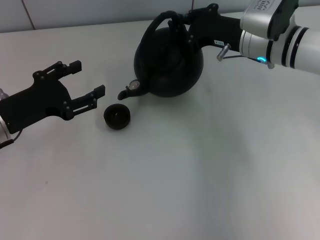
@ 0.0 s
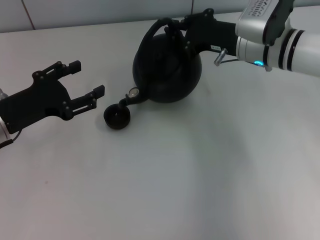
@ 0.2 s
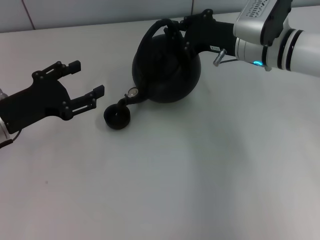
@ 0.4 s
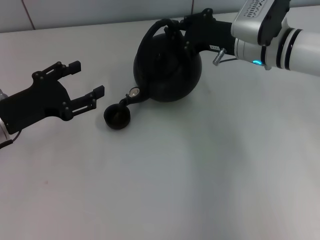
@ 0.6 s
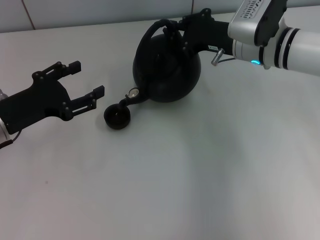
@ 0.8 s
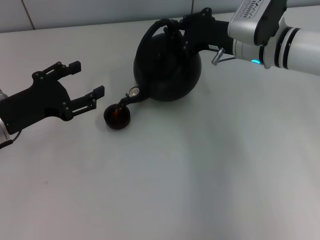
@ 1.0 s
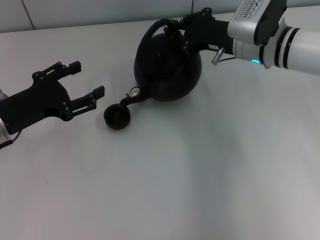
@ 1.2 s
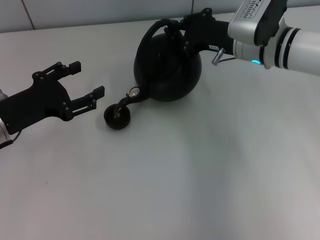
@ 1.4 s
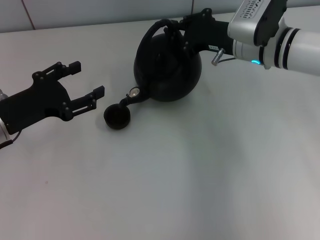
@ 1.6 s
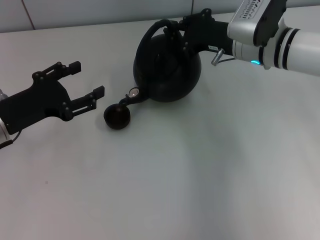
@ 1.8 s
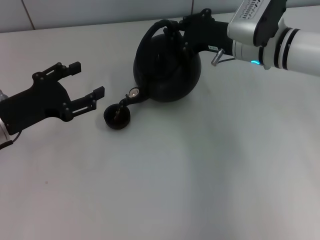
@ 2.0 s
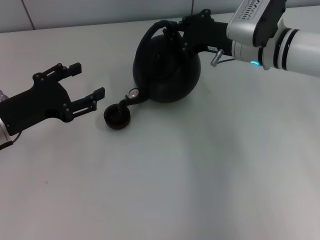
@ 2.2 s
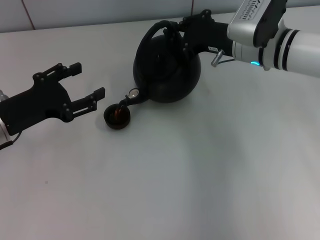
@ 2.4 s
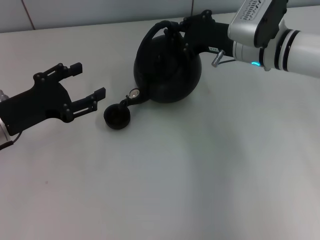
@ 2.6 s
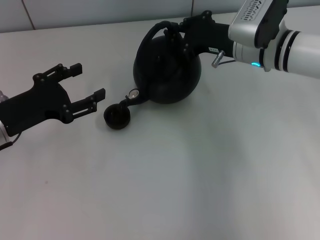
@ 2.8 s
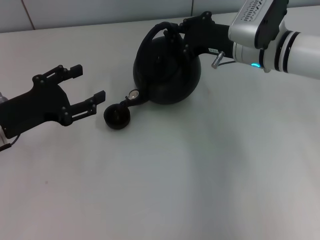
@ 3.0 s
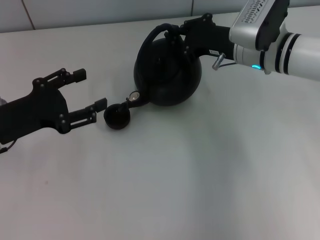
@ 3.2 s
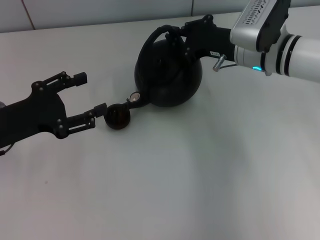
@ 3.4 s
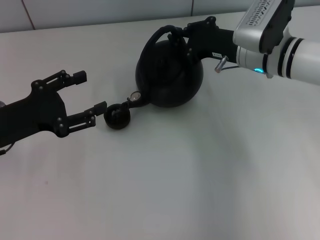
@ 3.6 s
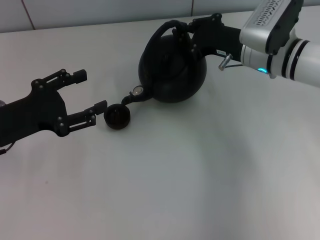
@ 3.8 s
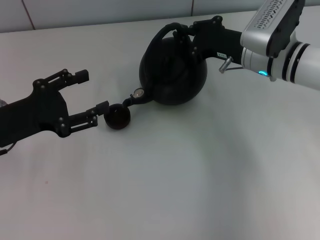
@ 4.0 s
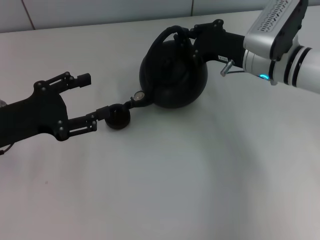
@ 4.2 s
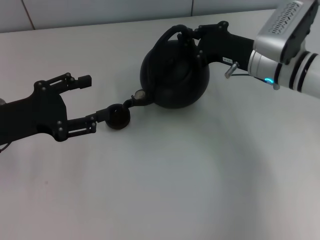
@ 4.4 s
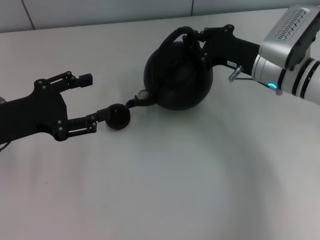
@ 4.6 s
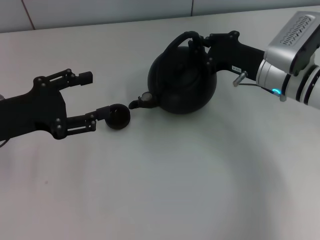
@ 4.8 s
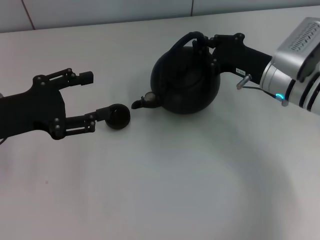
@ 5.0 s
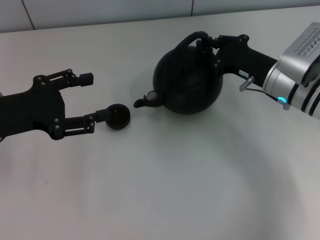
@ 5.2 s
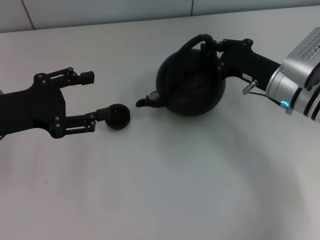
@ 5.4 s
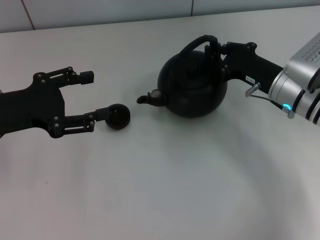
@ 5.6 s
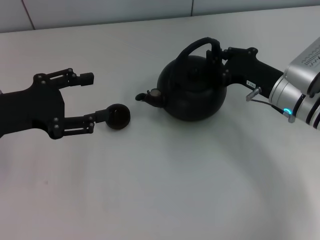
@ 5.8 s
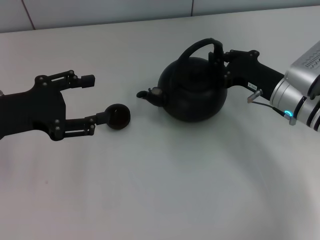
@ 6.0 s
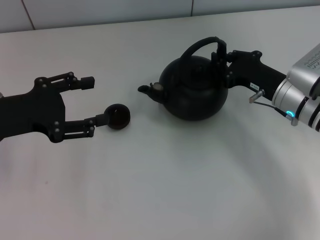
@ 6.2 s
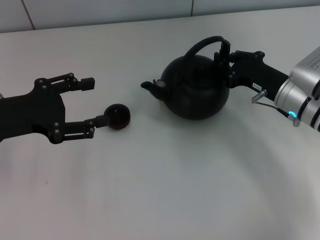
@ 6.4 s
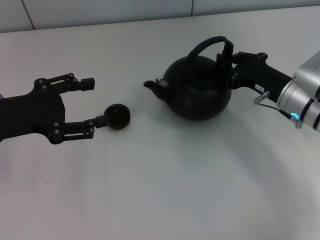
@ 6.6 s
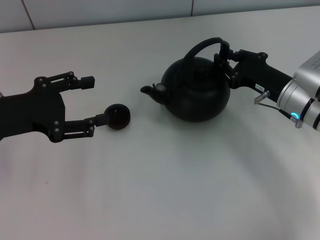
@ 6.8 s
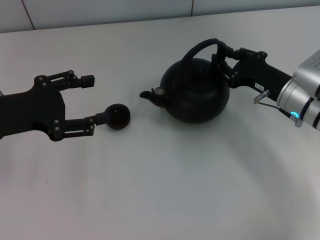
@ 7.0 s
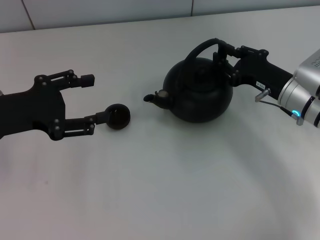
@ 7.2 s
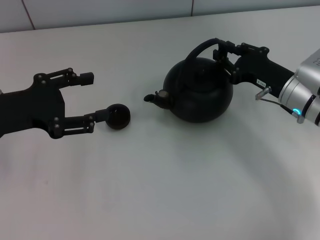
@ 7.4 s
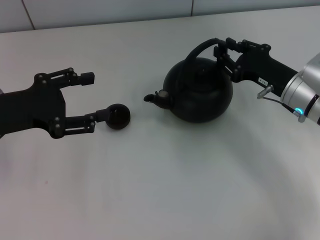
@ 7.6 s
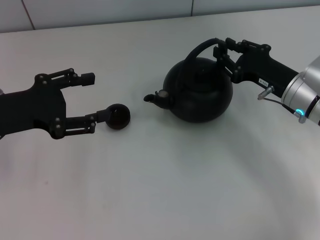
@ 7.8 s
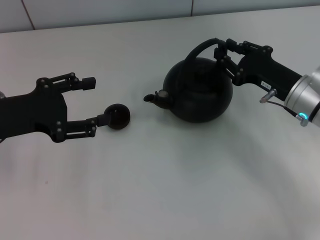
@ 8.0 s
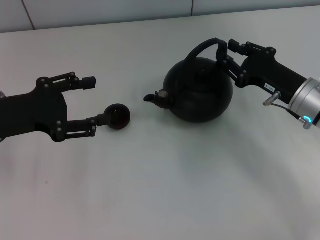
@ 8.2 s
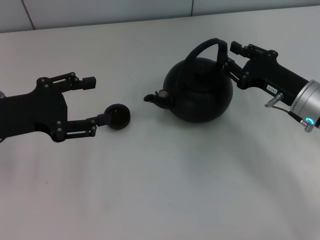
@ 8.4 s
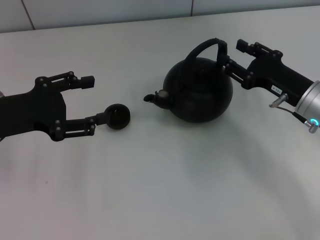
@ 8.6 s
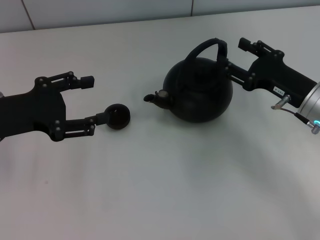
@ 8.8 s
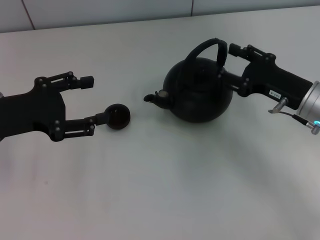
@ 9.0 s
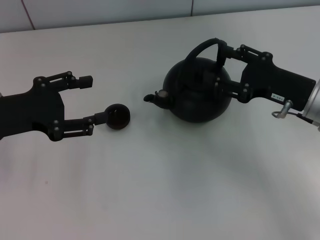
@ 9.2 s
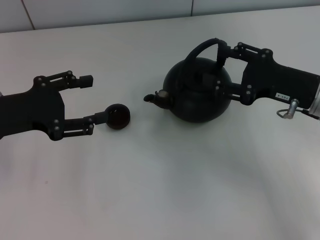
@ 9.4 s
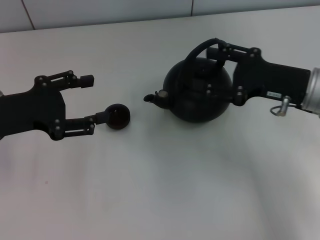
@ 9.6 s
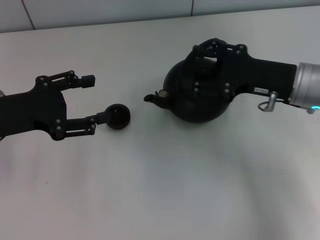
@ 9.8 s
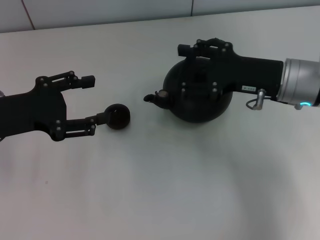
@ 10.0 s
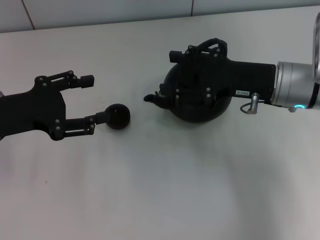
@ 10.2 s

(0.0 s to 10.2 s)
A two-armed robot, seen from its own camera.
Task of the whole recording: Grasp the handle of the teapot with one hand and pour tea into the teacup.
Step, 5.0 s - 9.0 s: Put down the teapot with the right gripper.
0.0 s - 3.0 s: Neither gripper changes place.
3.0 s - 4.4 s: There are only small adjustments of the grippers.
4.4 s - 5.8 s: The right gripper ends up some 5 cm from where it was.
5.8 s - 7.2 s: The grippers stay close to where they were, moving slightly.
7.2 s - 8.8 s: The right gripper opens.
8.8 s - 10.2 s: The right gripper shifts about 10 cm upward and to the left.

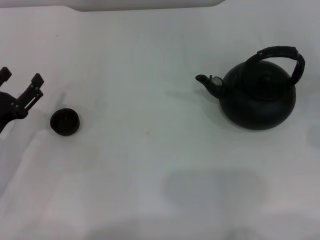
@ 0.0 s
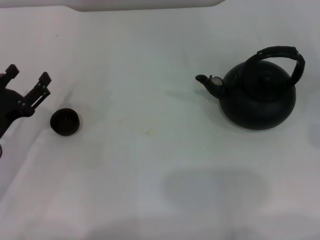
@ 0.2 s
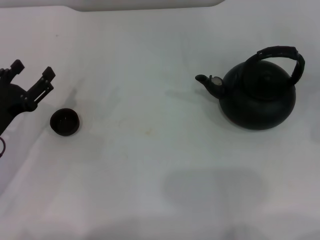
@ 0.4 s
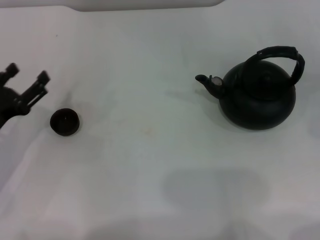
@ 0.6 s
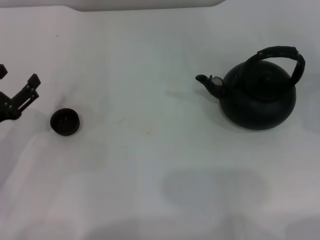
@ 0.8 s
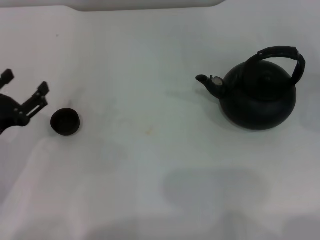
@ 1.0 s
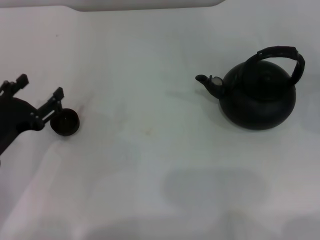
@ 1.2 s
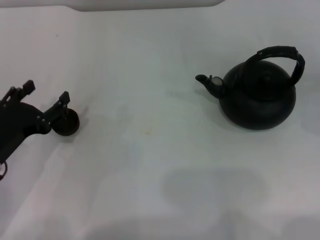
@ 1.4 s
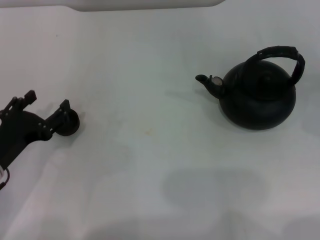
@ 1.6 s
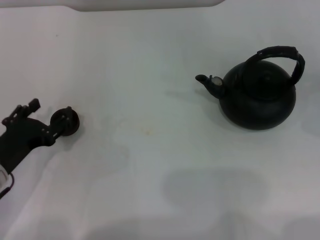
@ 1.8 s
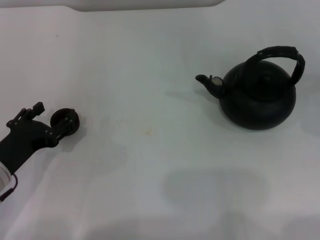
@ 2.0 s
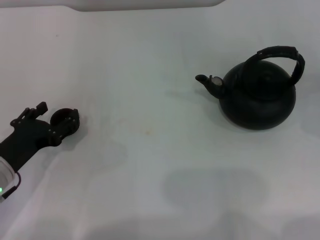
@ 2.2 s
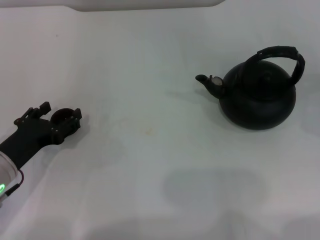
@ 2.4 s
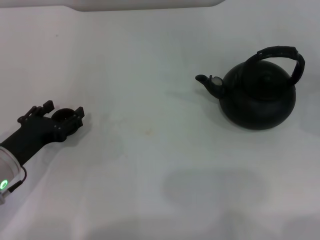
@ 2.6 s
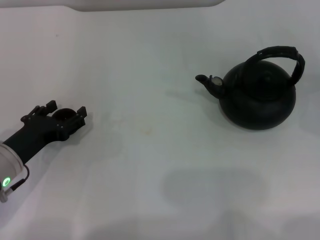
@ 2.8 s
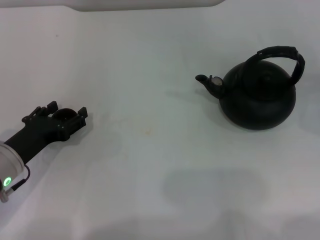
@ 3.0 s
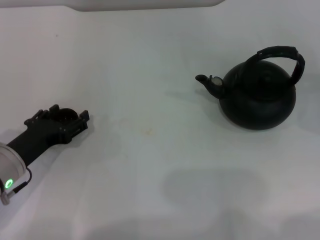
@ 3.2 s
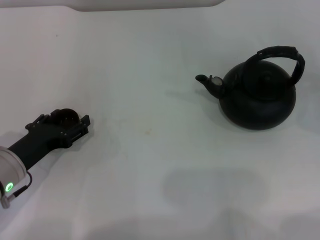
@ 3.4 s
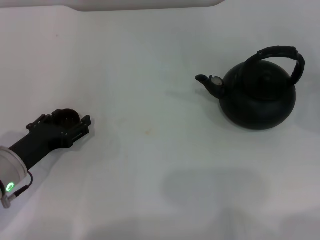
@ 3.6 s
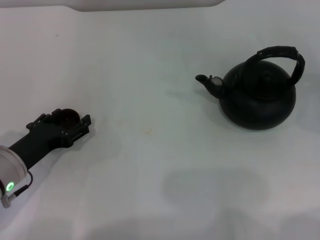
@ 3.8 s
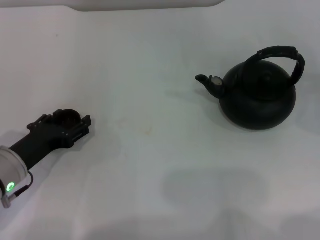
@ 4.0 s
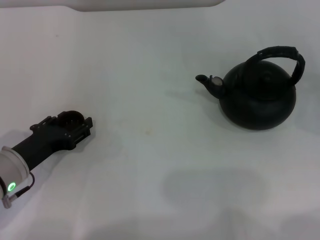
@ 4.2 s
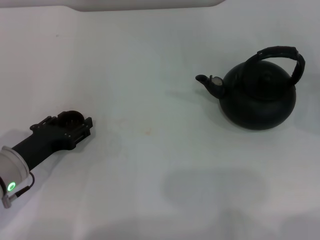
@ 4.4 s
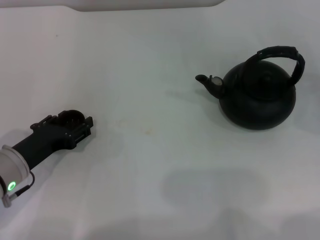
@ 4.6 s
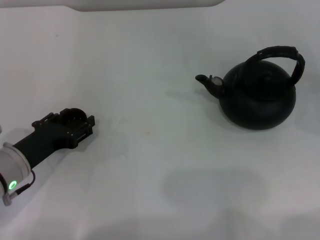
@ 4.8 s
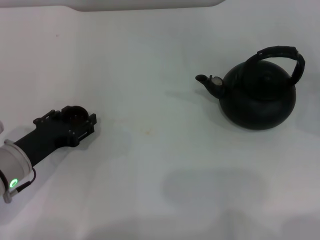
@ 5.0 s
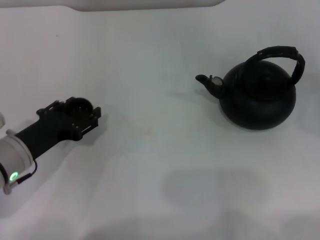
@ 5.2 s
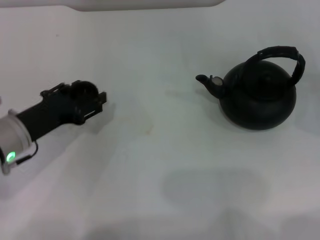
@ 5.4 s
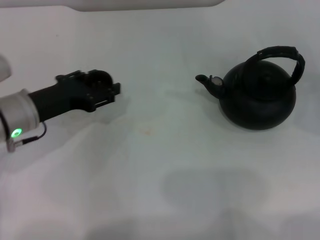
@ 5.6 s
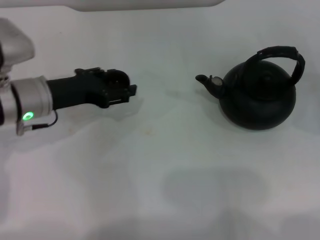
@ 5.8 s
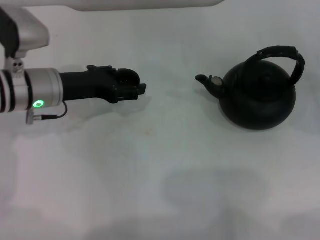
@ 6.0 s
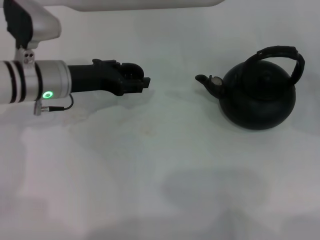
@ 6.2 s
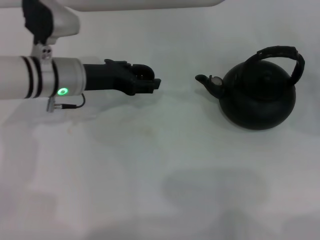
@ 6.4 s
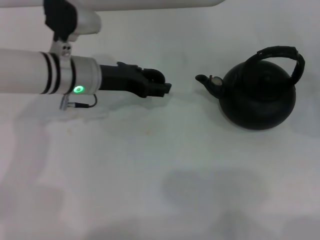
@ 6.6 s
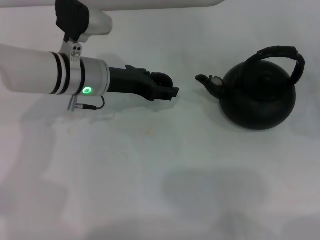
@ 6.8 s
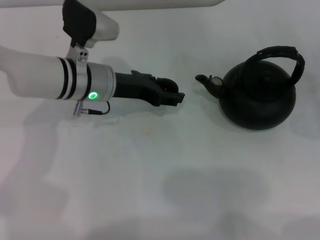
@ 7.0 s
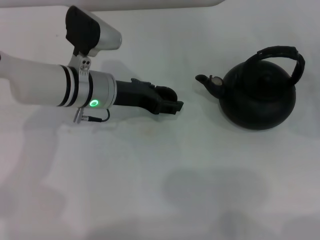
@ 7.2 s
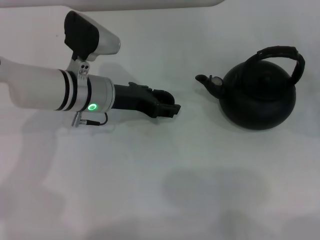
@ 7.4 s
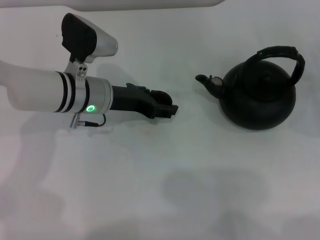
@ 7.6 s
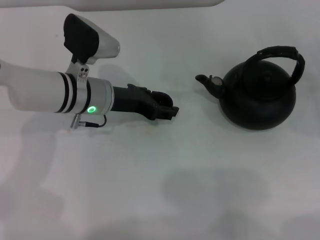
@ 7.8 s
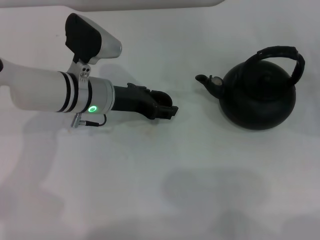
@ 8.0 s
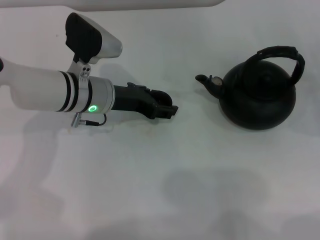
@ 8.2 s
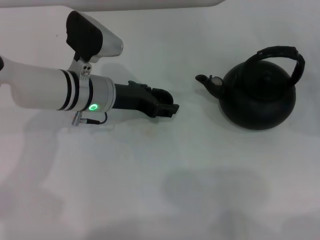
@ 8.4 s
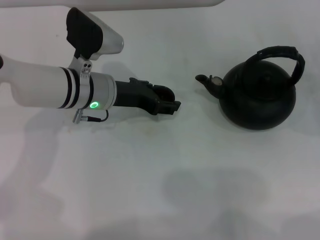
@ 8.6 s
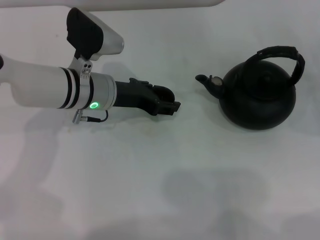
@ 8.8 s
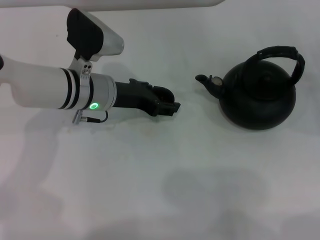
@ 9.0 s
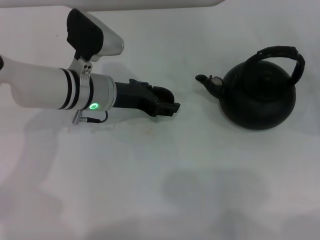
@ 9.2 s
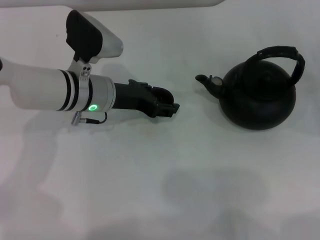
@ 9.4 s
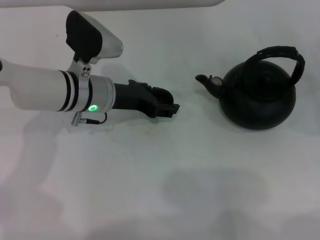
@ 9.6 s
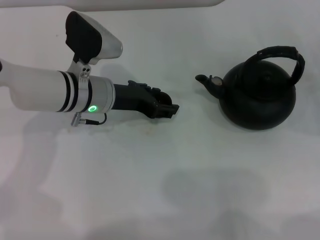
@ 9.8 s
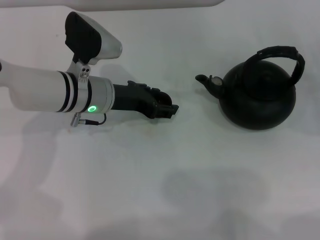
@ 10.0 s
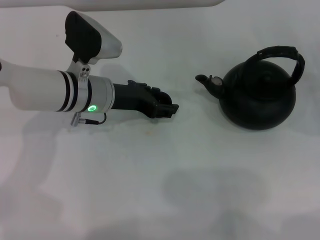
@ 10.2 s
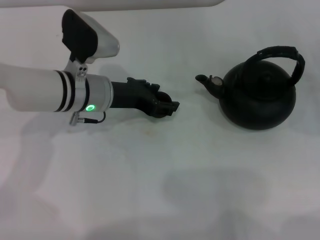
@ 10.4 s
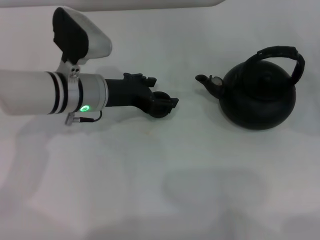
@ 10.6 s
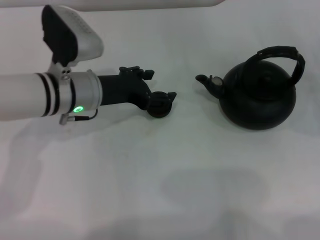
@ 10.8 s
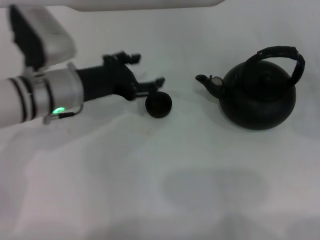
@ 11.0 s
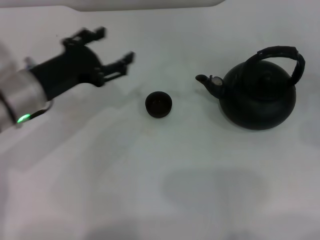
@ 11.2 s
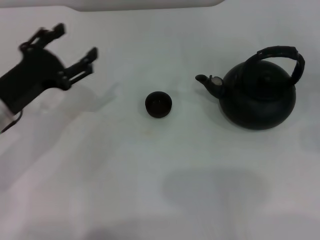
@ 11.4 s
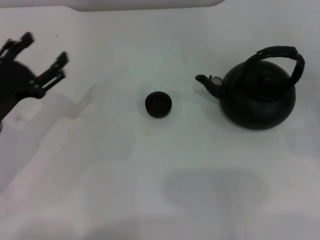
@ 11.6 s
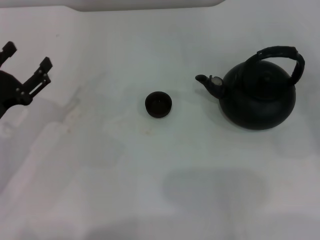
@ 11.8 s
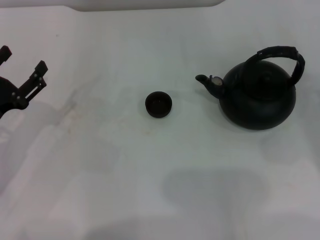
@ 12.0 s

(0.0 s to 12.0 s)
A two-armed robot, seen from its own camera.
Task of the whole recording: Grasp the handle of the teapot with one hand and pour tea into the teacup.
Step, 0.0 s - 5.2 s: Pick up the teacup with the left gripper.
Step, 5.4 s - 10.8 s: Place the teacup in the center of view with the left gripper.
0.0 s - 1.6 s: The left gripper ends up approximately 5 cm from where it was.
1.6 s - 3.0 s: The grippers make only small movements.
3.0 s - 4.4 s: The left gripper closes up.
4.4 s - 6.0 s: The left gripper moves forward and upward, some 15 cm.
6.0 s - 7.6 s: The left gripper heads to the right, covering roughly 5 cm.
7.6 s - 9.0 s: Neither gripper changes place.
9.0 s - 10.4 s: Both grippers stay put.
10.4 s - 12.0 s: The right gripper travels upward and backward by approximately 10 cm. Meanwhile the left gripper moves to the left and backward, approximately 20 cm, and opens.
